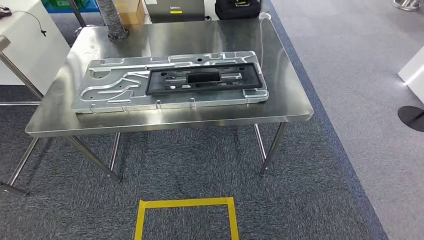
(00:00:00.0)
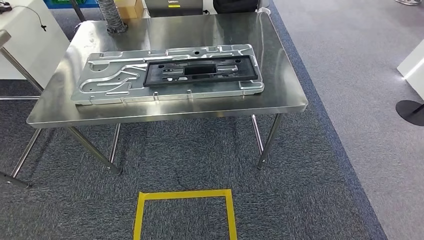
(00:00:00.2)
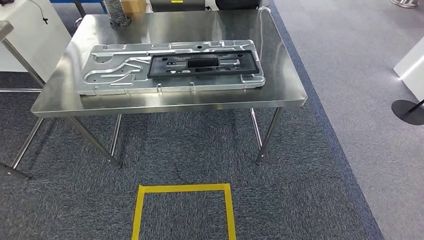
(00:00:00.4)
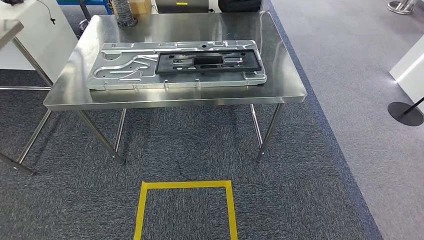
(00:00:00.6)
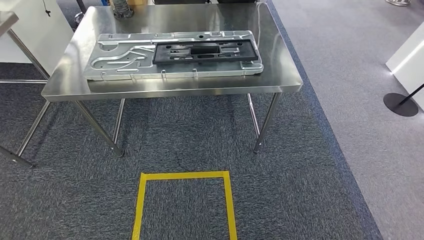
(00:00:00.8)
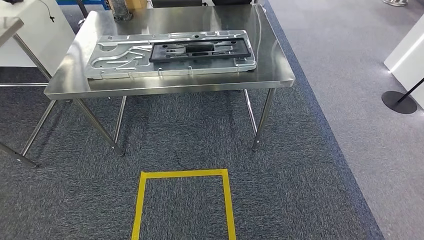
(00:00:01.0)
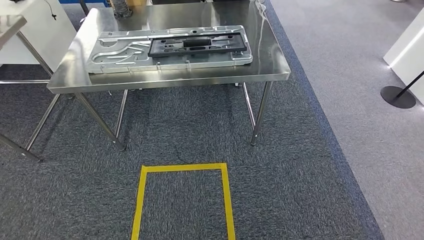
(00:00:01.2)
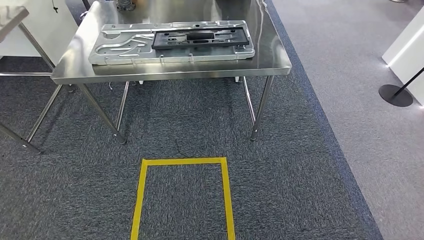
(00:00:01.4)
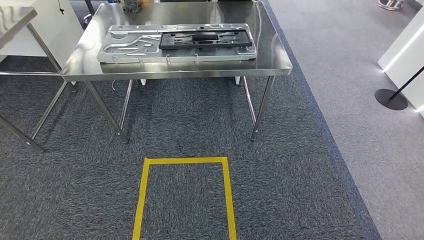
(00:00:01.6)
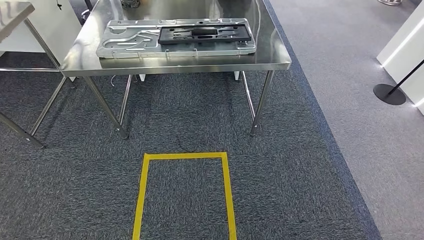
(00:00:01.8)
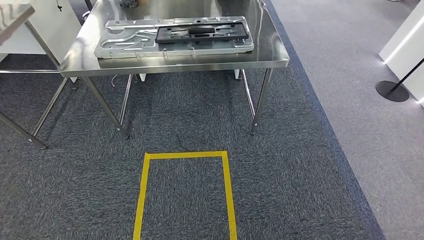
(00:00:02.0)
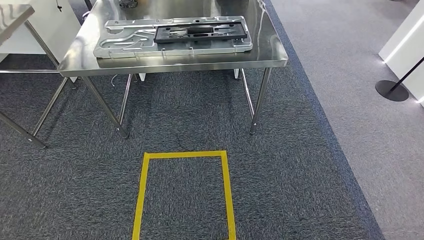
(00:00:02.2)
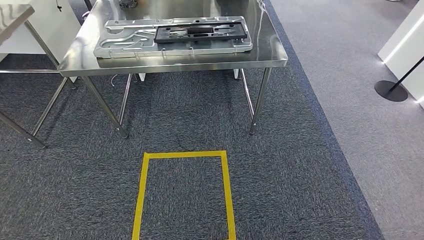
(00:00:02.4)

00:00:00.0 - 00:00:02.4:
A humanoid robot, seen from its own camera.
Step, 00:00:00.0 - 00:00:02.4: Move to the initial position of the shelf.
00:00:01.2 - 00:00:02.4: Both hands stay about where they are.
